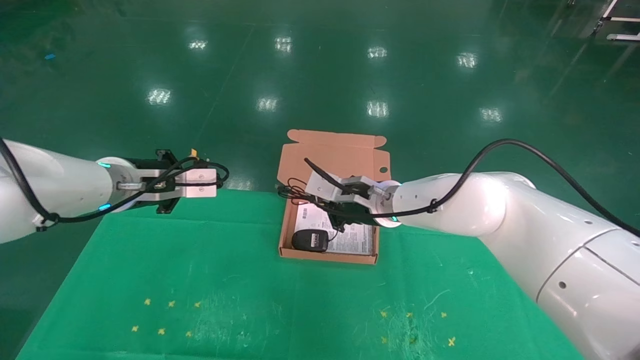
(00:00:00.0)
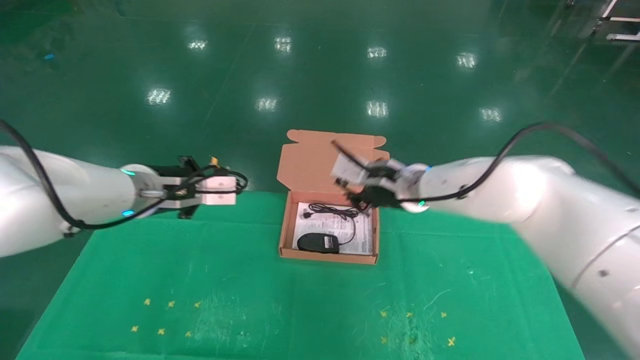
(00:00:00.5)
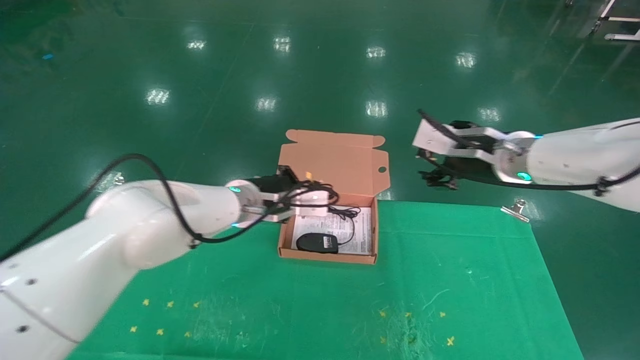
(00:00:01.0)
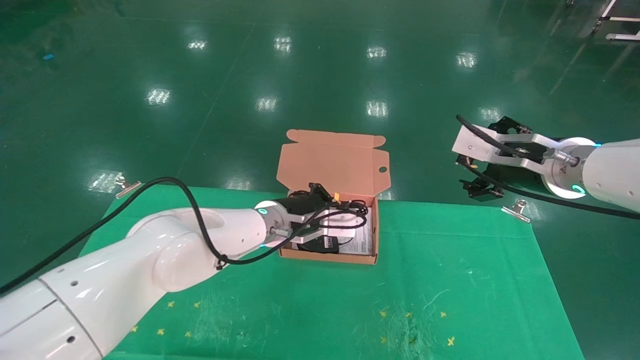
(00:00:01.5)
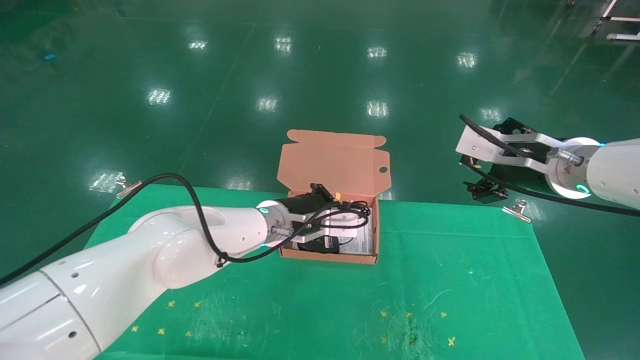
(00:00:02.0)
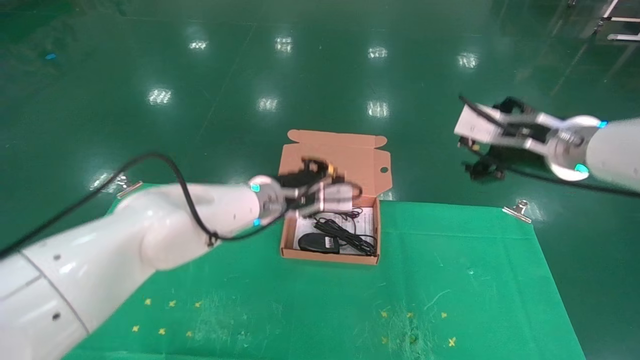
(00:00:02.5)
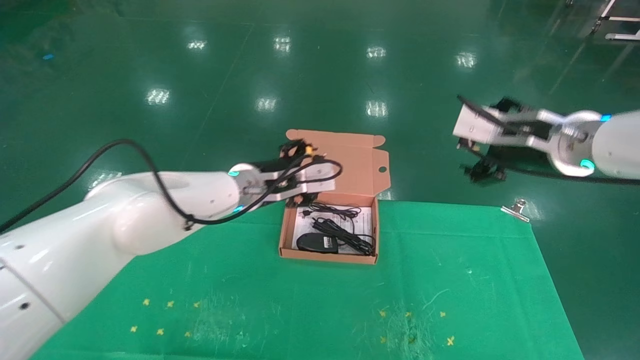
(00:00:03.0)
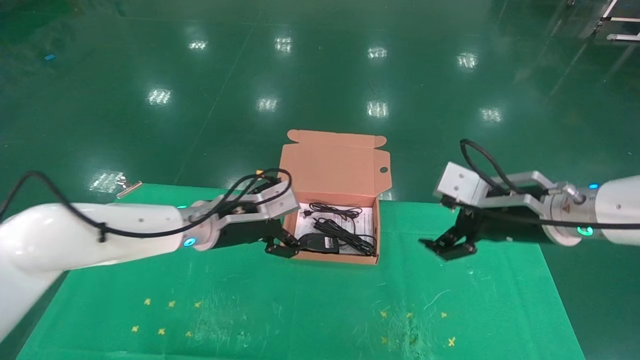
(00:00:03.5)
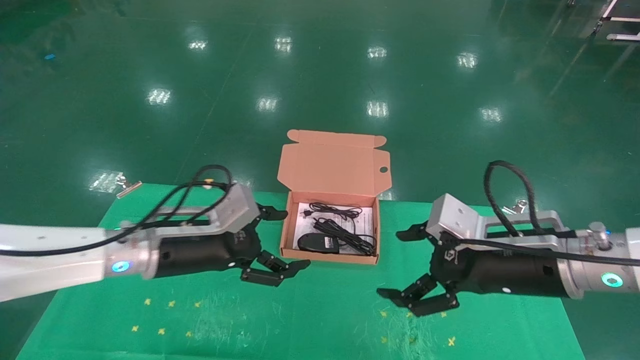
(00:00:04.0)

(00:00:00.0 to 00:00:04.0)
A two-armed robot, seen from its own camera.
Task of the whole recording: grasp data cable left put into box grasp mouse right put into box.
Step, 00:00:00.0 - 00:00:02.5: Place the mouse and power cord into the box.
00:00:00.0 - 00:00:02.0: The left gripper moves to the right and downward, about 20 cm; the right gripper shifts roughly 25 cm to the right, backward and upward, and opens its fingers.
00:00:02.0 - 00:00:04.0: The left gripper shifts about 20 cm to the left and backward, and opens. Meanwhile the right gripper shifts about 10 cm downward and backward.
